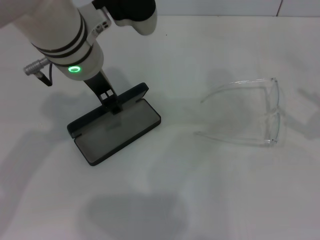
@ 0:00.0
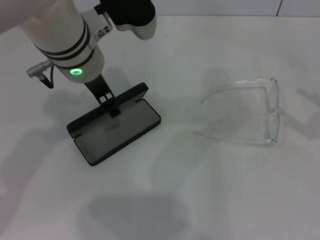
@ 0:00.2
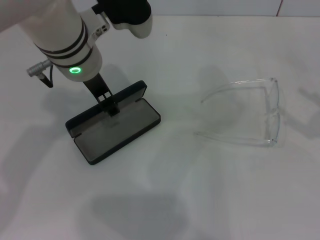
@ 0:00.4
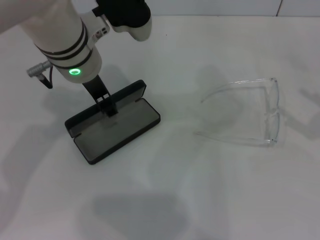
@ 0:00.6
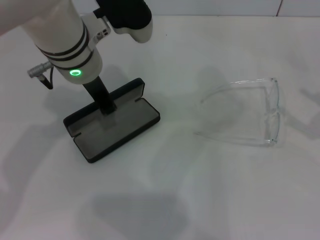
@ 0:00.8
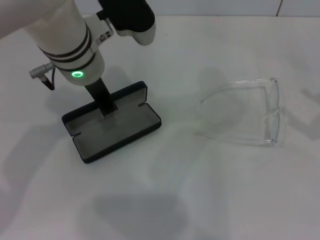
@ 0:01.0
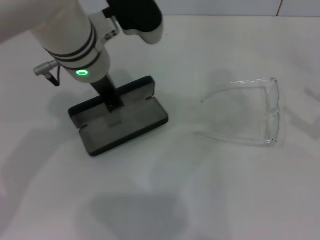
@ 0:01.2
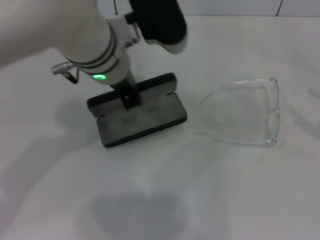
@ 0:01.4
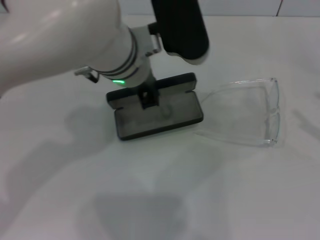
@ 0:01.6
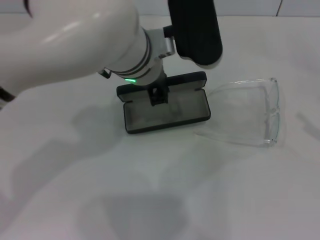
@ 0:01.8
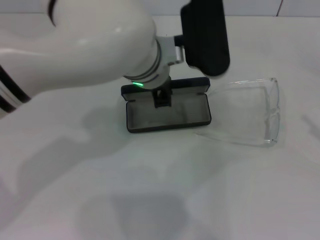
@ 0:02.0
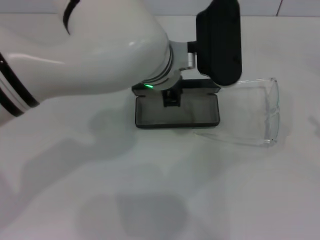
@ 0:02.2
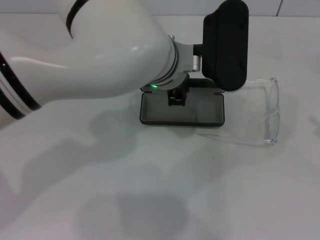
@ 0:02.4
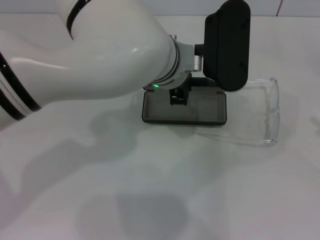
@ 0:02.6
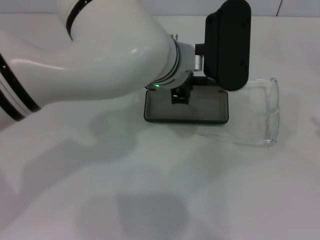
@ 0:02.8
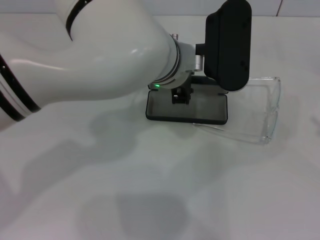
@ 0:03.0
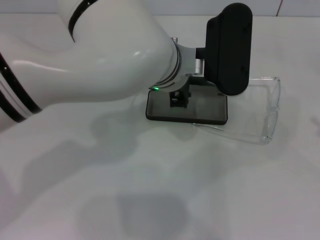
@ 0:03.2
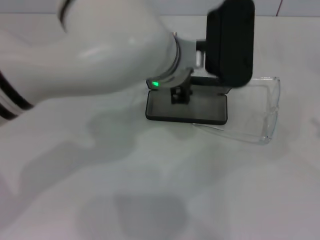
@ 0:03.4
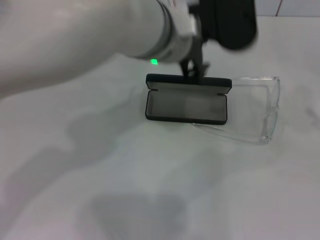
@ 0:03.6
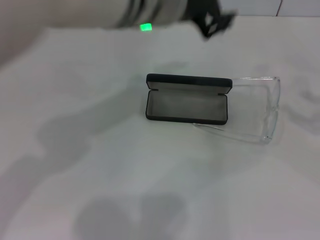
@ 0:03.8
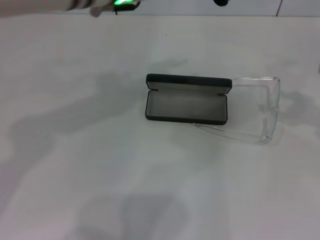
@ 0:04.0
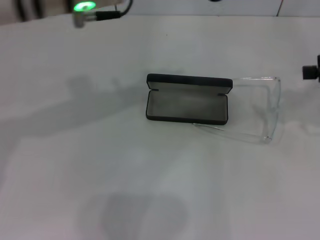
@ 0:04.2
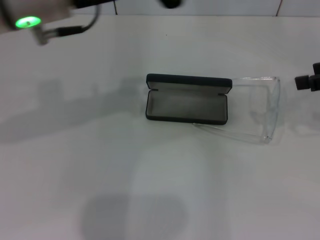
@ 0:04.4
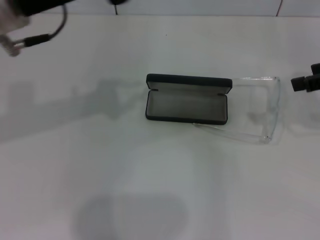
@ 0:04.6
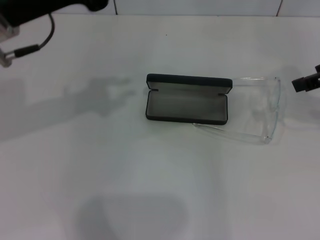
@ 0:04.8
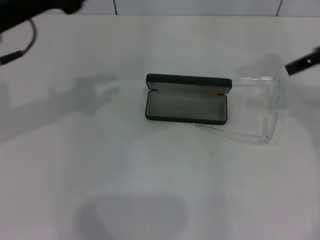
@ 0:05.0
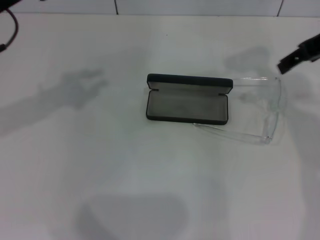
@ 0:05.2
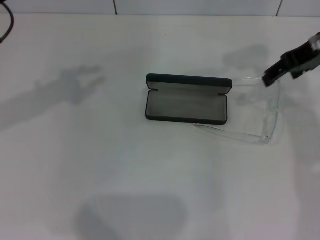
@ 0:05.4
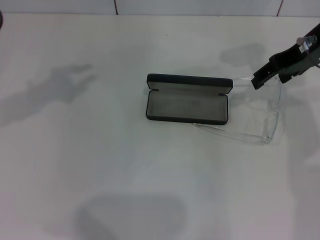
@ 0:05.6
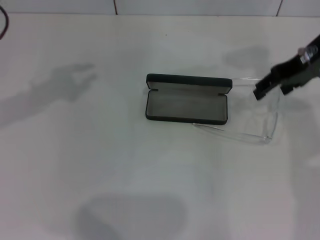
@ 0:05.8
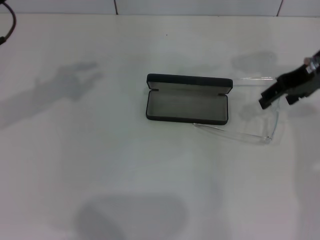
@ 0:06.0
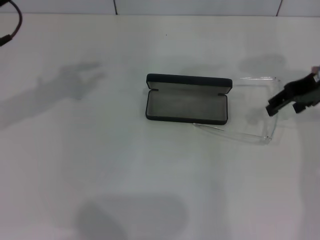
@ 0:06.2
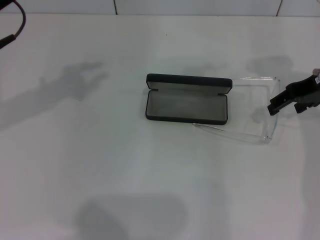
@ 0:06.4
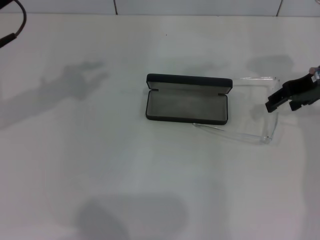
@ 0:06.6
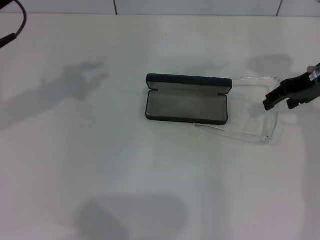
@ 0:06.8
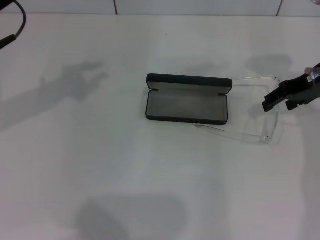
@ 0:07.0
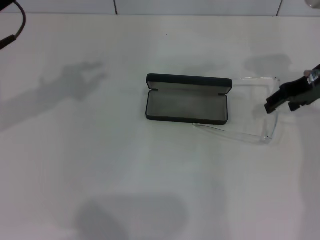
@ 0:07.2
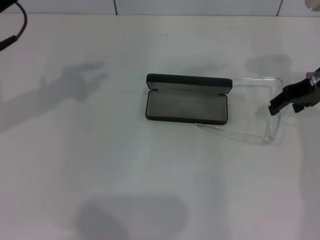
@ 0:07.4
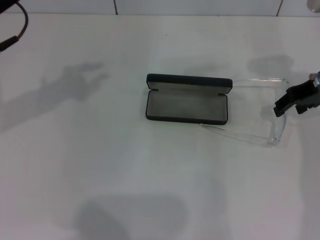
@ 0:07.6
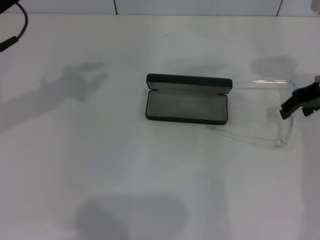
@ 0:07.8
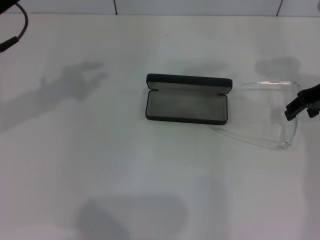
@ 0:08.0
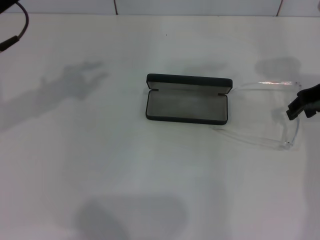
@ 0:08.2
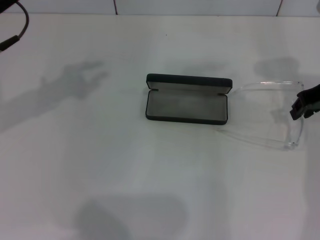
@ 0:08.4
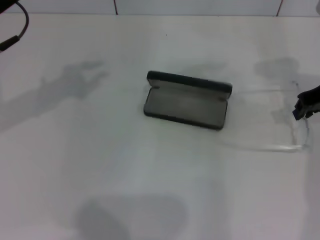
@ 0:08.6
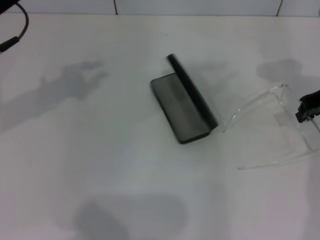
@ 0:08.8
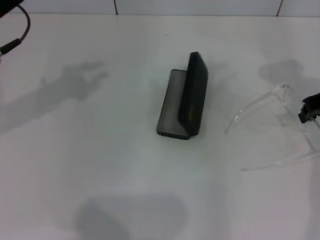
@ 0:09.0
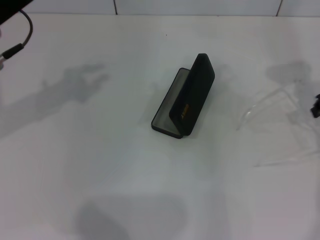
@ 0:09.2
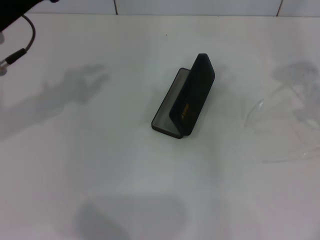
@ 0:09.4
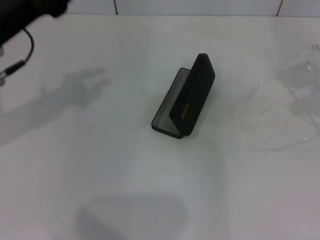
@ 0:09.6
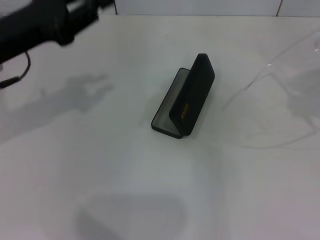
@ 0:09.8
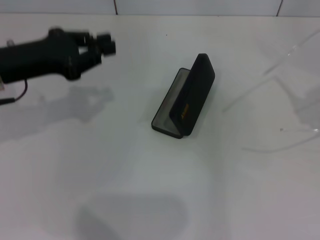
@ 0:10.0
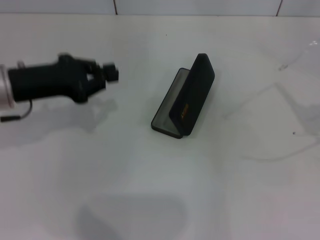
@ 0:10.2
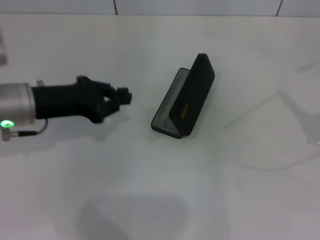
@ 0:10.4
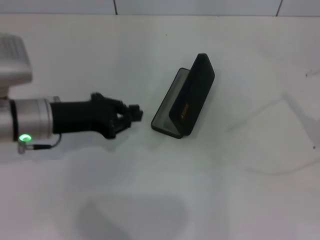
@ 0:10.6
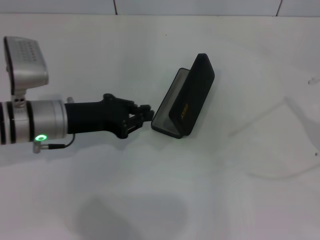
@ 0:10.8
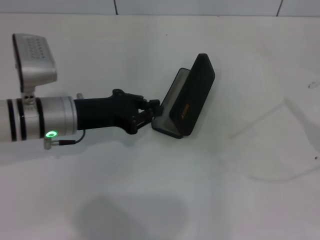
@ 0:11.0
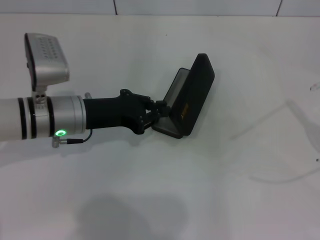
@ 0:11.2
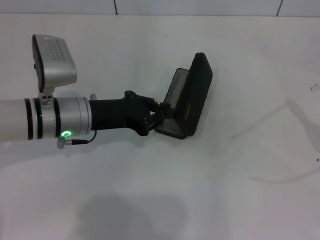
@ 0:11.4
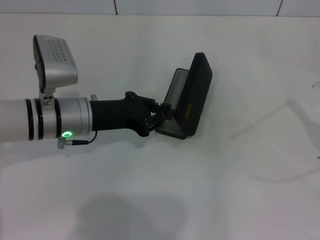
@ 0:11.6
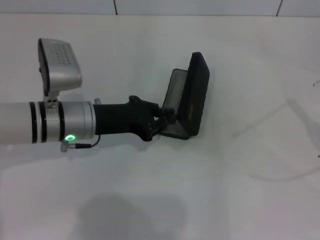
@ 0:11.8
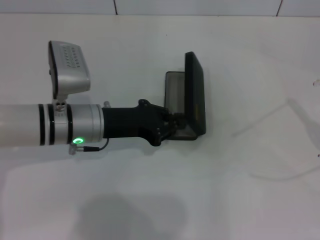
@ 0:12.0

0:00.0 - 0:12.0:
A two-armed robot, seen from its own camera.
Step, 0:01.0 - 0:02.8: Place the glasses case in the center of the table with your left hand.
Step, 0:03.2 - 0:08.8: Grab the eyeglass frame with your right hand.
0:00.0 - 0:01.6: The left gripper shifts approximately 5 cm to the right, and closes up.
0:01.6 - 0:03.0: The left gripper moves approximately 5 cm.
0:03.0 - 0:04.4: The left gripper heads to the left and upward, covering some 15 cm; the right gripper is displaced upward, forward and to the left by some 20 cm.
0:04.4 - 0:06.0: The right gripper travels to the left and forward by about 10 cm, while the left gripper heads to the left and downward, covering approximately 15 cm.
0:06.0 - 0:07.6: The grippers make only small movements.
0:07.6 - 0:09.0: The right gripper closes up.
0:09.0 - 0:10.4: The right gripper moves backward, to the right and upward, roughly 25 cm, while the left gripper shifts some 10 cm downward.
0:10.4 - 0:12.0: The left gripper goes some 10 cm to the right.

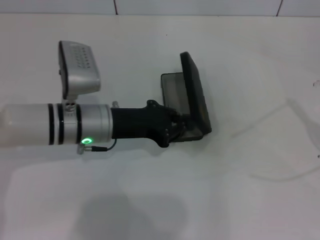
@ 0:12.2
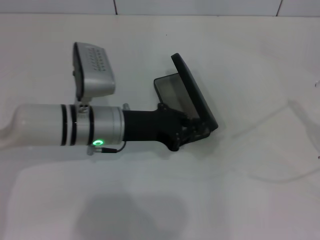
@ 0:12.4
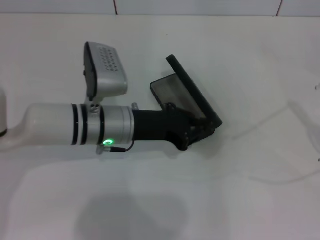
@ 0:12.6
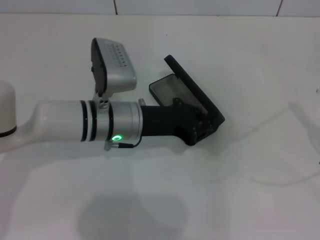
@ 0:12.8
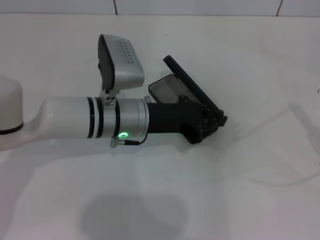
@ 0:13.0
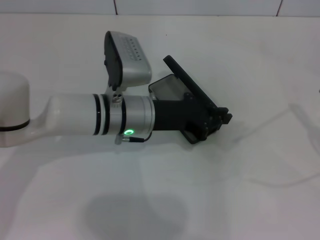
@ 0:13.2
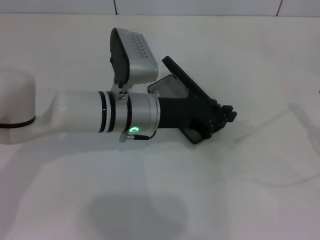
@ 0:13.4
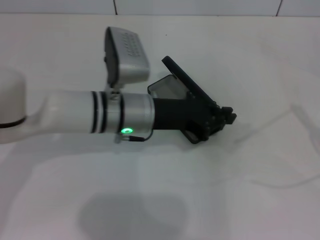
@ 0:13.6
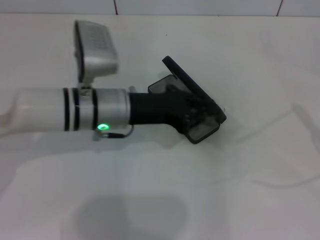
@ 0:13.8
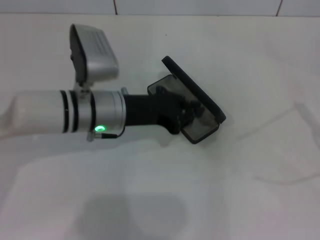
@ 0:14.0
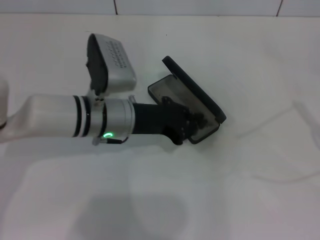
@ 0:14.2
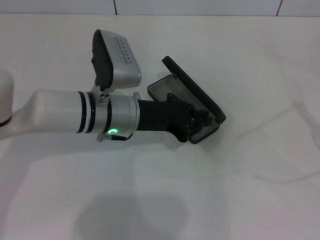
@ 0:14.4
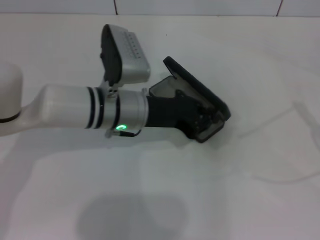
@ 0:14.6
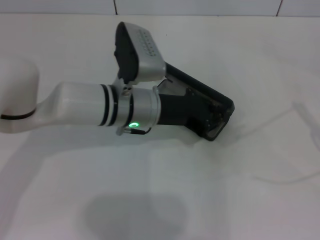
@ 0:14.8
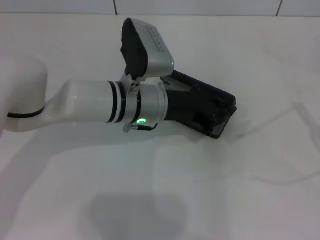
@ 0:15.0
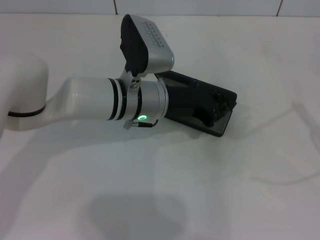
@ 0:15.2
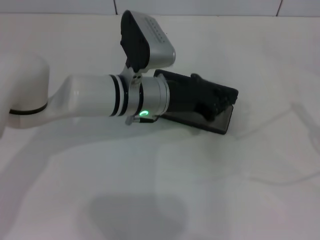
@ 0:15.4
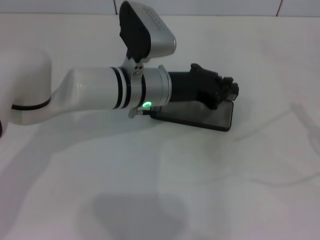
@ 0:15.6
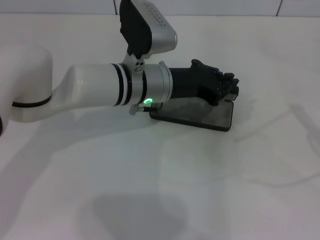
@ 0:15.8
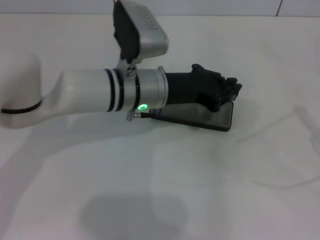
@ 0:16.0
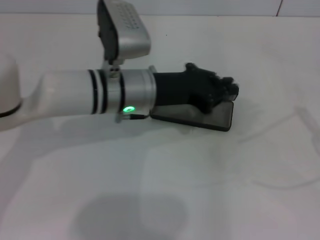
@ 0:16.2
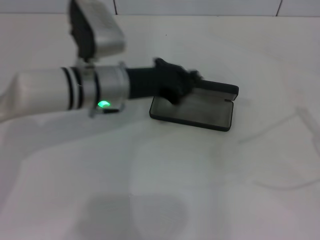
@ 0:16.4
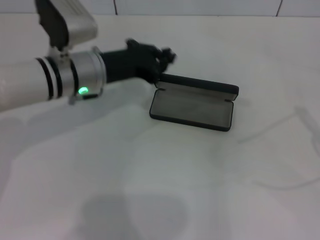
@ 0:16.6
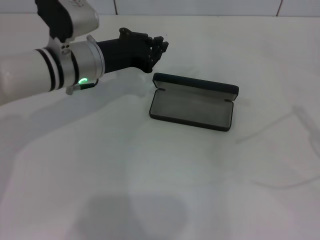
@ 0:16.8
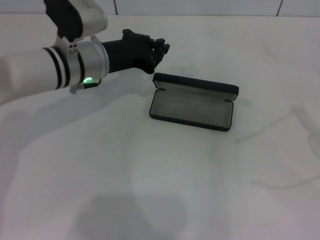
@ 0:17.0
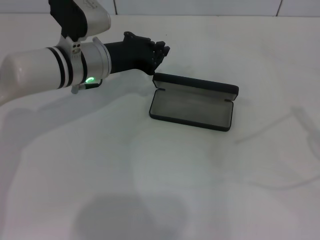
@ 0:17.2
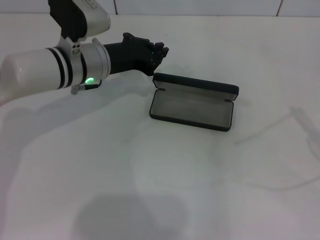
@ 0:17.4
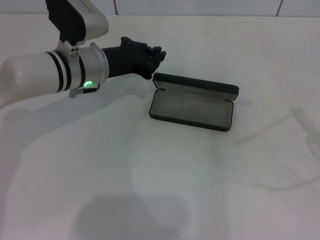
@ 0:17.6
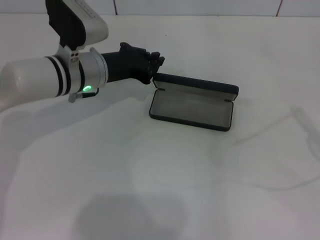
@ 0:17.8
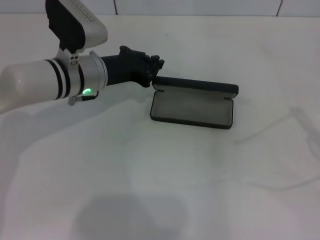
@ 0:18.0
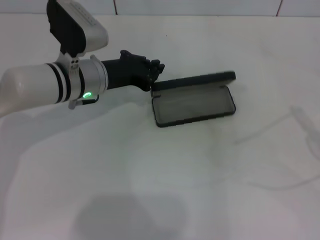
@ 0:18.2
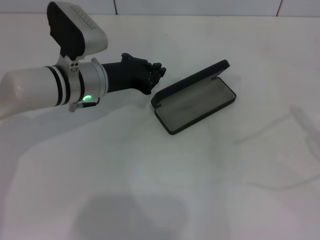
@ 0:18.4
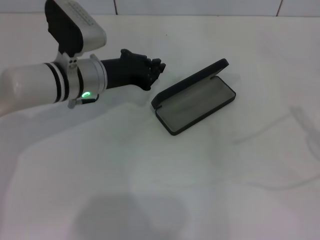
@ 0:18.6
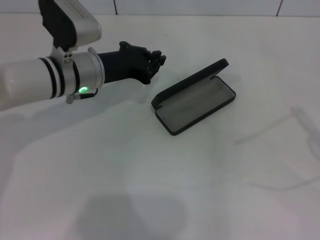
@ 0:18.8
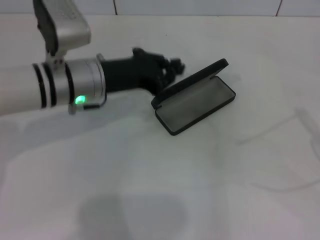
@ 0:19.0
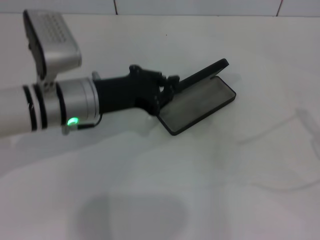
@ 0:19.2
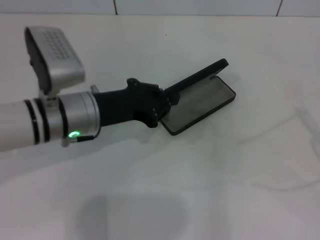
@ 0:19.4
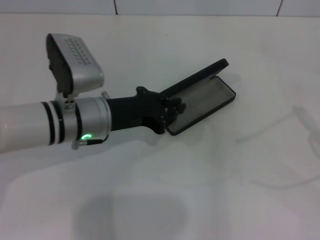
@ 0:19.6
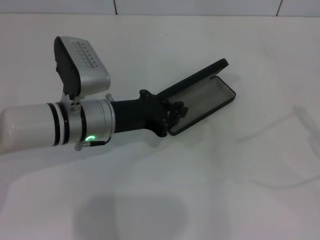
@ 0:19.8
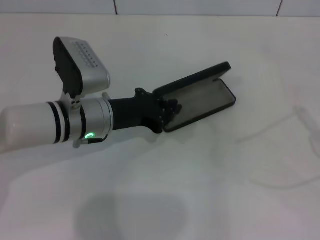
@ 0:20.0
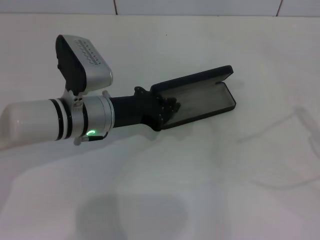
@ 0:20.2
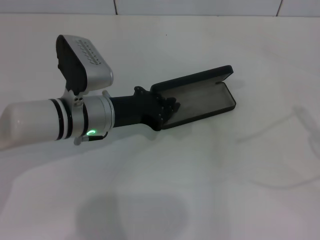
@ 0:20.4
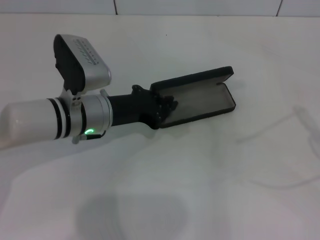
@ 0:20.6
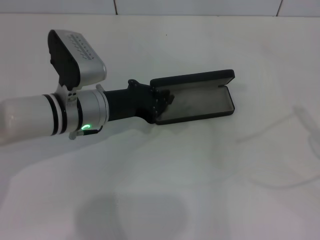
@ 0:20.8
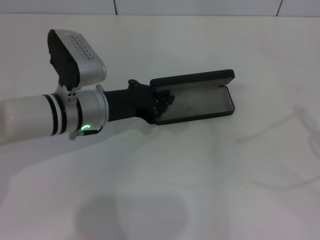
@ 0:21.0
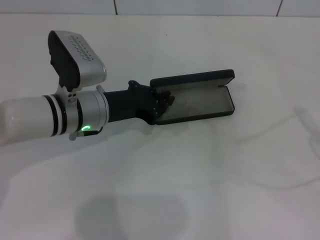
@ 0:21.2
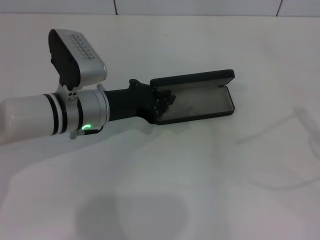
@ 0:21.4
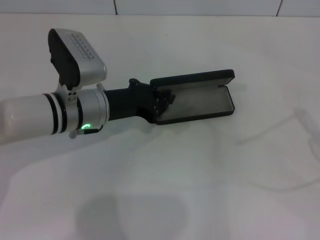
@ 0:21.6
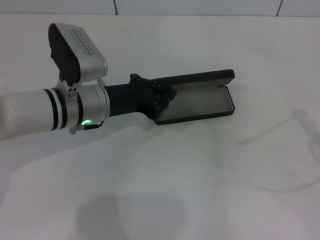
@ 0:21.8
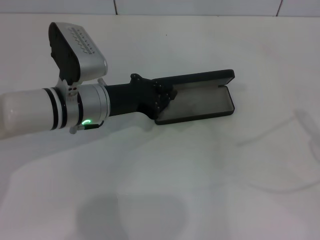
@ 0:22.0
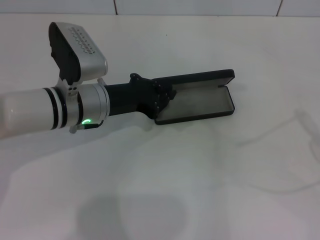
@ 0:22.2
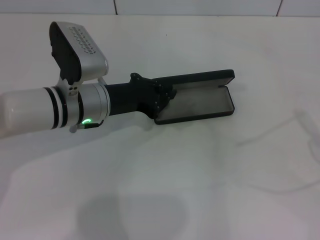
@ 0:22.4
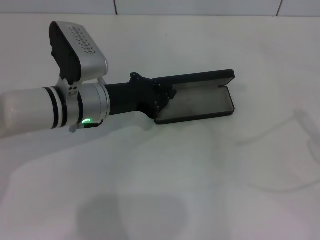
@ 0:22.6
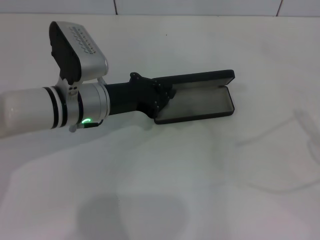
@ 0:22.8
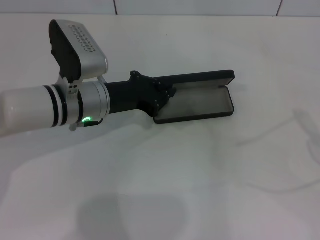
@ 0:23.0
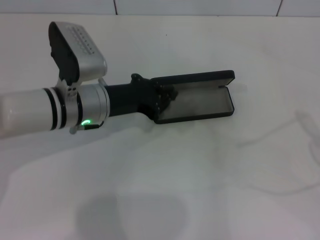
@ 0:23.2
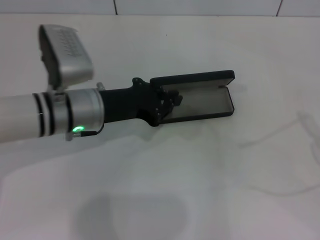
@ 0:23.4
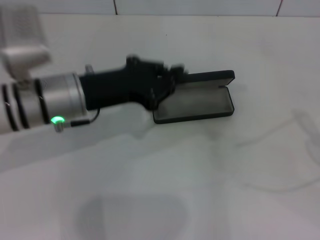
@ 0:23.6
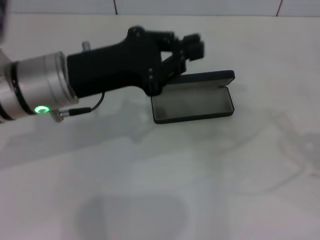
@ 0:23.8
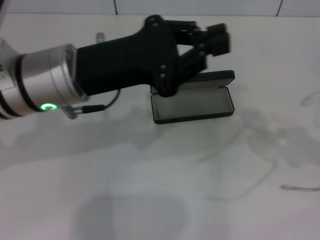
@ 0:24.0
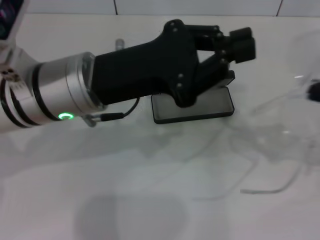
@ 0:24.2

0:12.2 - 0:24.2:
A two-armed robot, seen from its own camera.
0:13.8 - 0:15.2: The left gripper moves to the right, about 5 cm.
0:15.2 - 0:16.6: The left gripper goes roughly 10 cm to the left.
0:16.6 - 0:18.2: The grippers make only small movements.
0:18.2 - 0:19.8: The left gripper travels backward by some 5 cm.
0:19.8 - 0:21.2: The grippers make only small movements.
0:21.2 - 0:22.6: The two grippers keep their place.
0:22.6 - 0:24.2: The left gripper is displaced upward and backward by some 10 cm. The right gripper heads to the left, forward and downward, covering approximately 15 cm.
